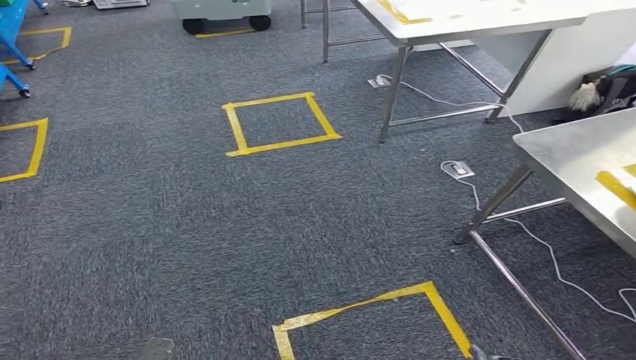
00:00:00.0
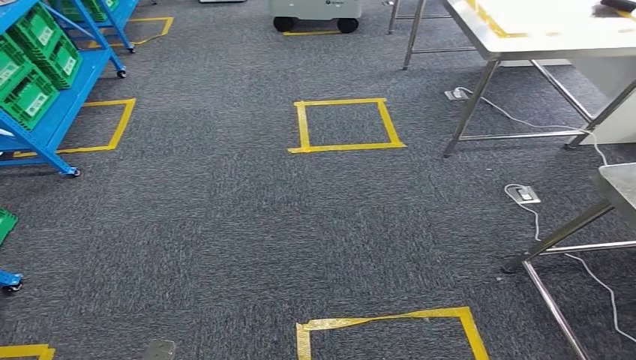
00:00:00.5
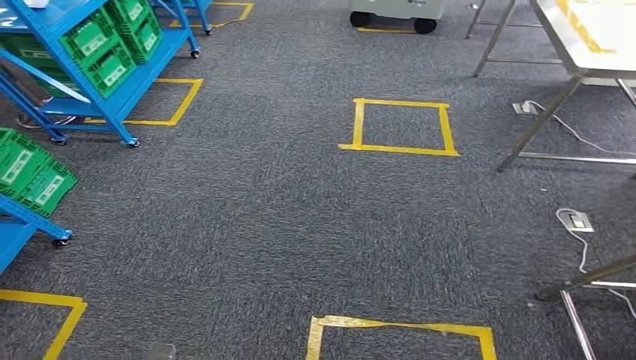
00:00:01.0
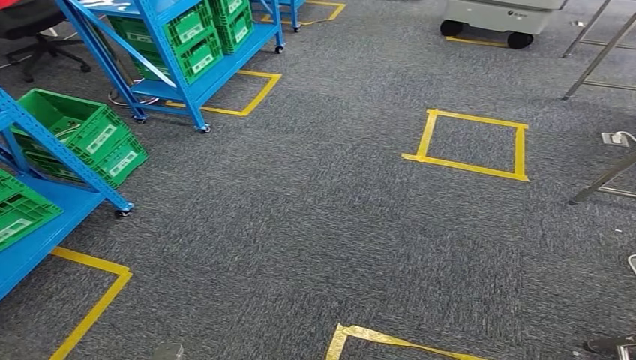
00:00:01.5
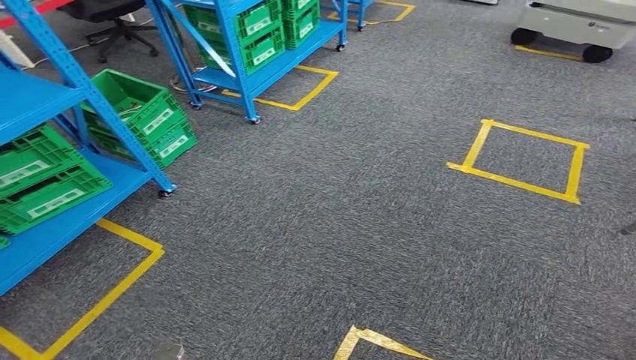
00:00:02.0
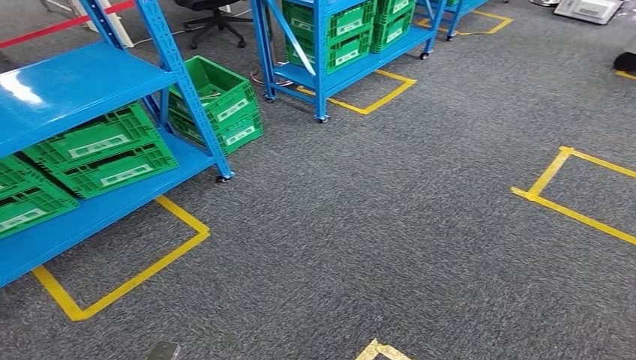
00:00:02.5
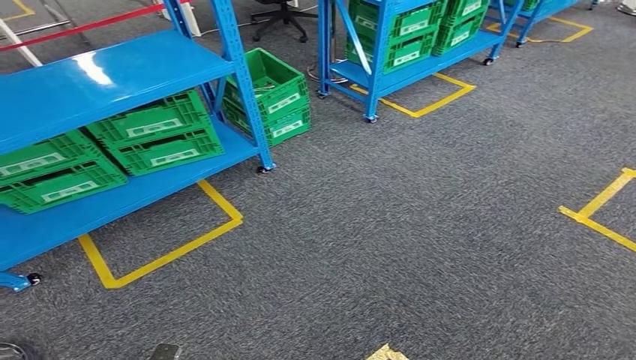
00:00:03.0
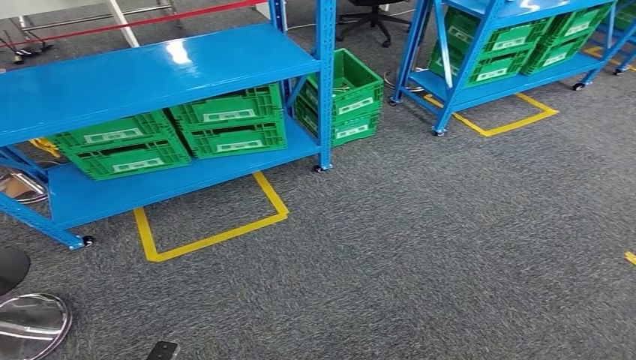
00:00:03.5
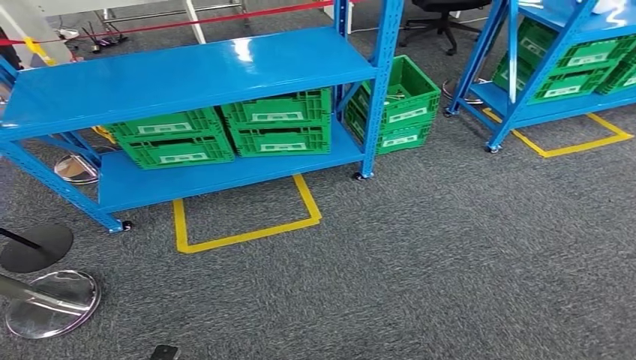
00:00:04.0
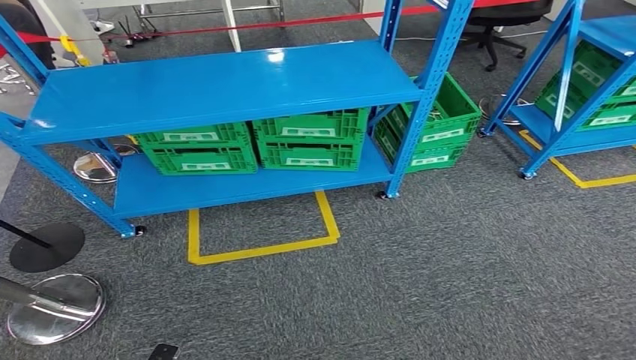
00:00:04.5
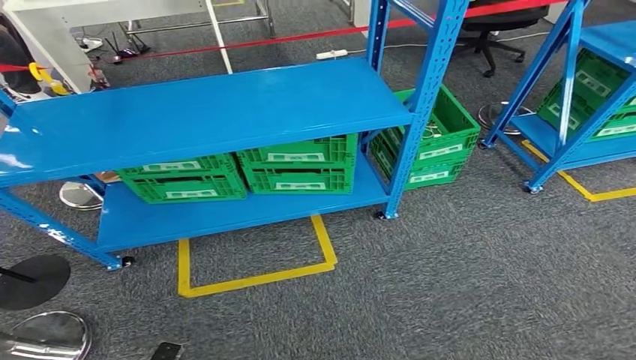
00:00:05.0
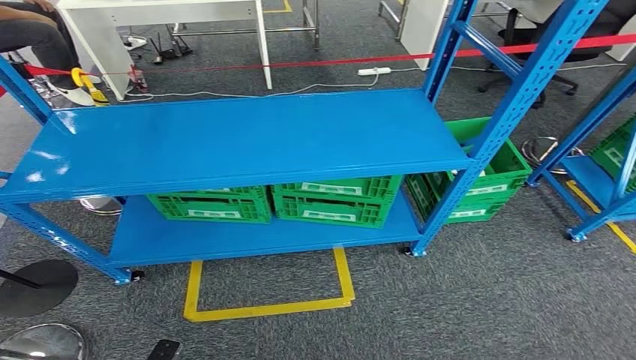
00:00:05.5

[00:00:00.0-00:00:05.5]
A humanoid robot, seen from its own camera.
Step, 00:00:00.0 to 00:00:05.5: Return to the initial position at the workbench.
